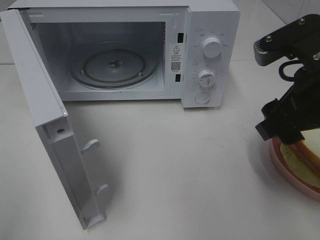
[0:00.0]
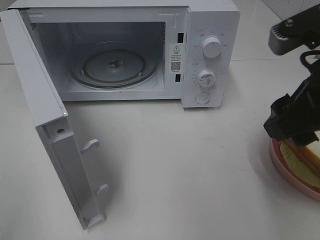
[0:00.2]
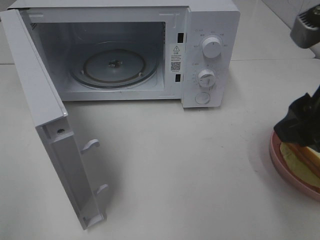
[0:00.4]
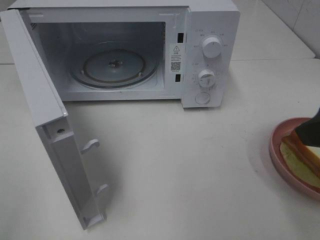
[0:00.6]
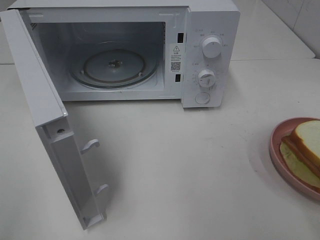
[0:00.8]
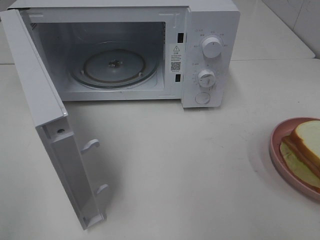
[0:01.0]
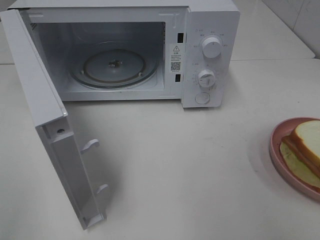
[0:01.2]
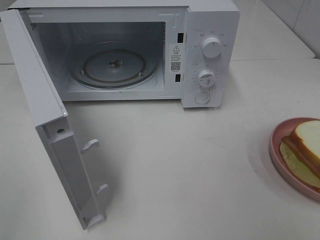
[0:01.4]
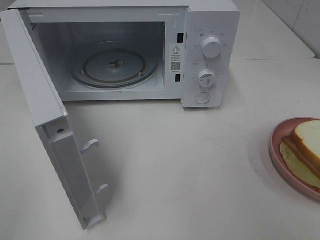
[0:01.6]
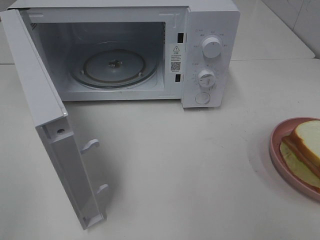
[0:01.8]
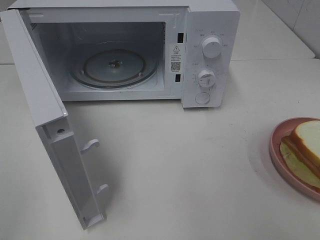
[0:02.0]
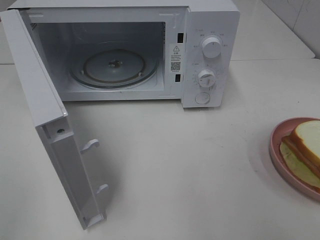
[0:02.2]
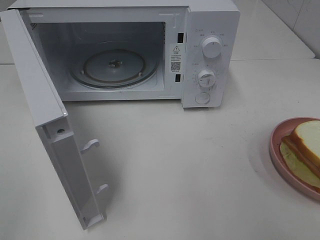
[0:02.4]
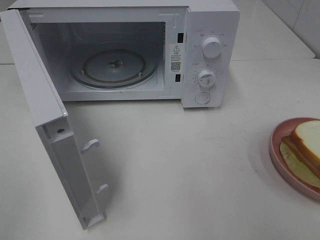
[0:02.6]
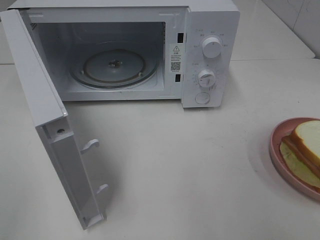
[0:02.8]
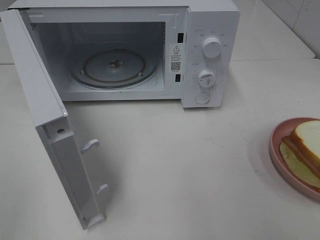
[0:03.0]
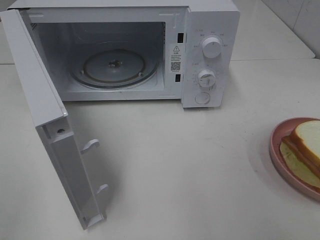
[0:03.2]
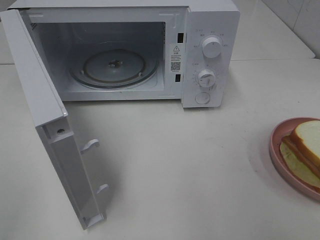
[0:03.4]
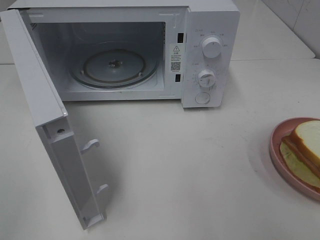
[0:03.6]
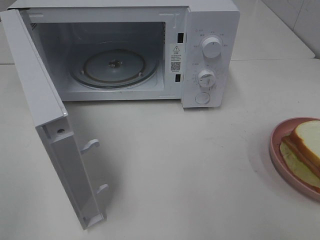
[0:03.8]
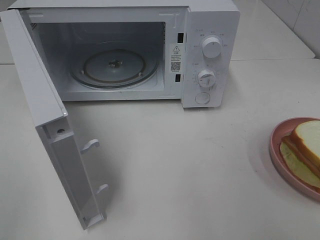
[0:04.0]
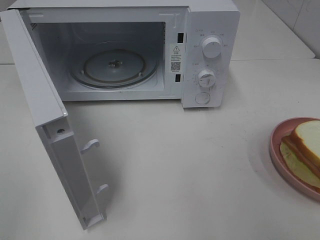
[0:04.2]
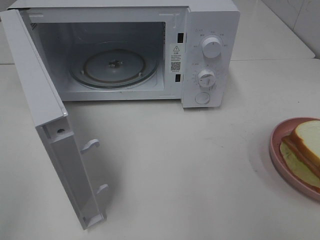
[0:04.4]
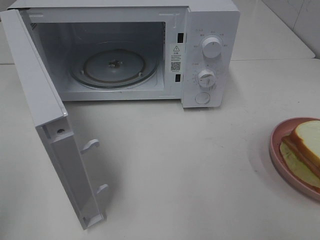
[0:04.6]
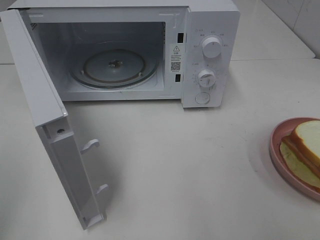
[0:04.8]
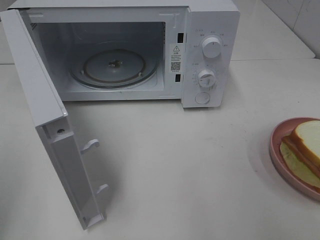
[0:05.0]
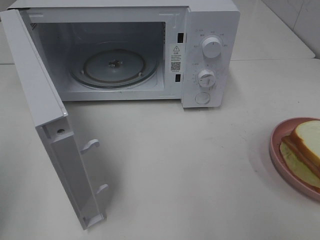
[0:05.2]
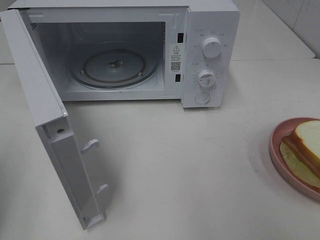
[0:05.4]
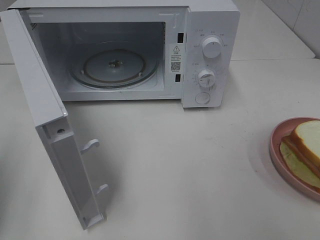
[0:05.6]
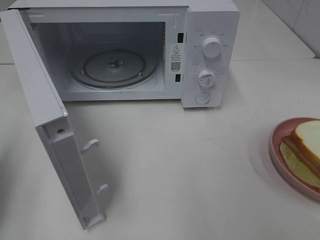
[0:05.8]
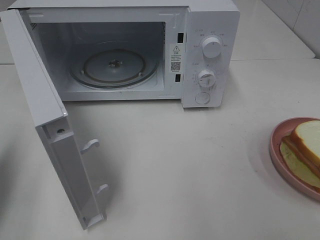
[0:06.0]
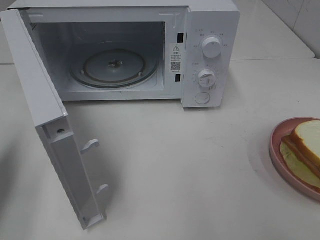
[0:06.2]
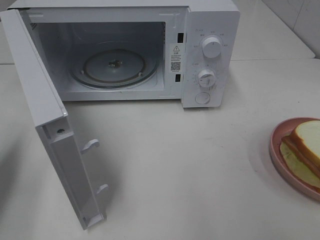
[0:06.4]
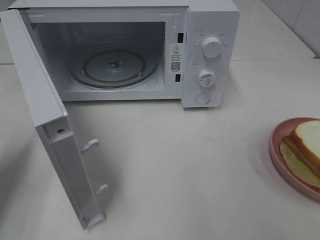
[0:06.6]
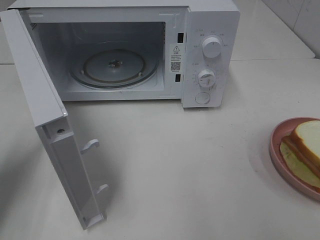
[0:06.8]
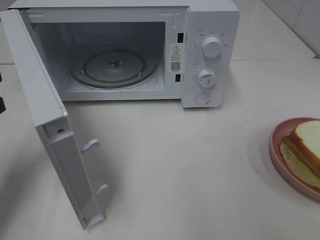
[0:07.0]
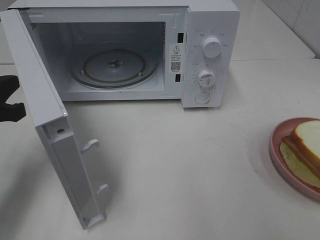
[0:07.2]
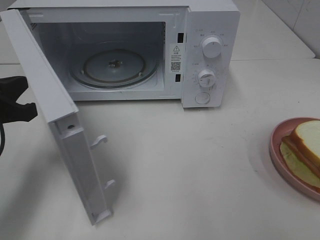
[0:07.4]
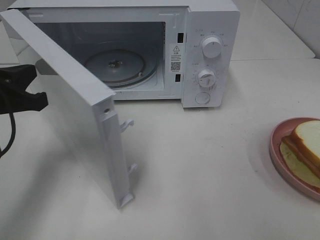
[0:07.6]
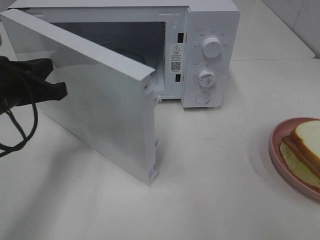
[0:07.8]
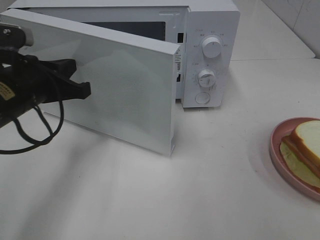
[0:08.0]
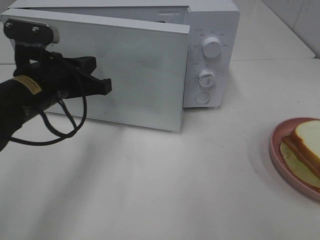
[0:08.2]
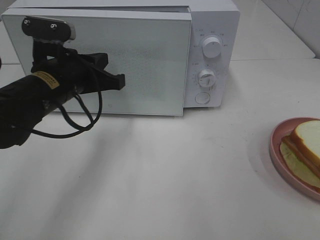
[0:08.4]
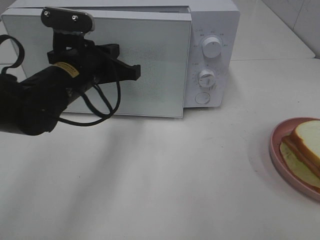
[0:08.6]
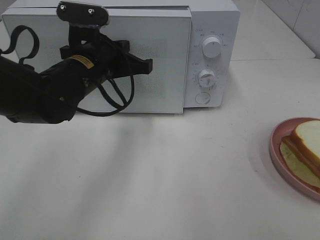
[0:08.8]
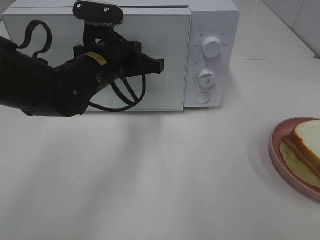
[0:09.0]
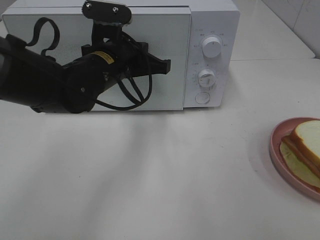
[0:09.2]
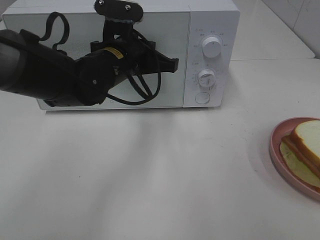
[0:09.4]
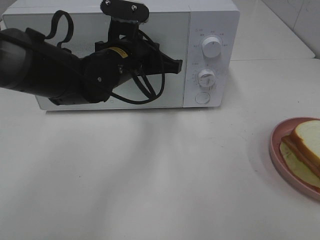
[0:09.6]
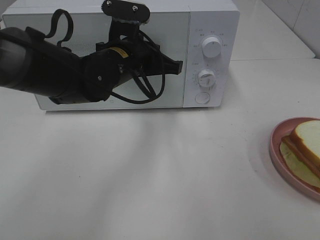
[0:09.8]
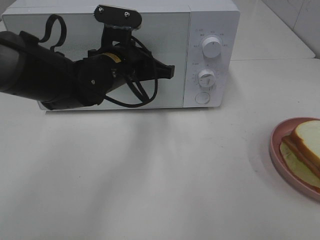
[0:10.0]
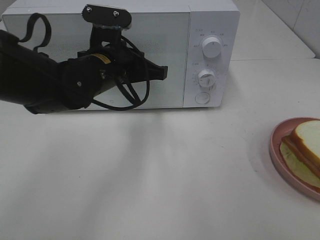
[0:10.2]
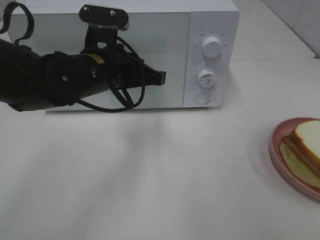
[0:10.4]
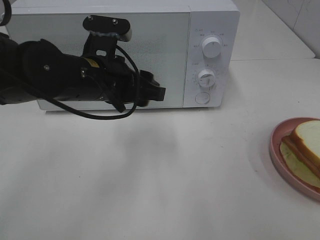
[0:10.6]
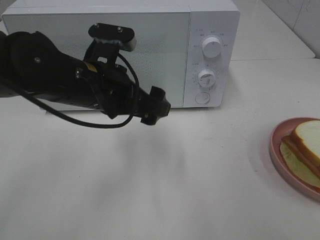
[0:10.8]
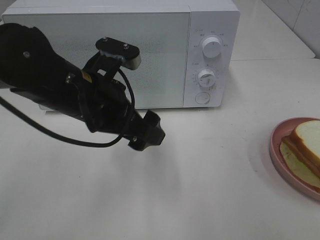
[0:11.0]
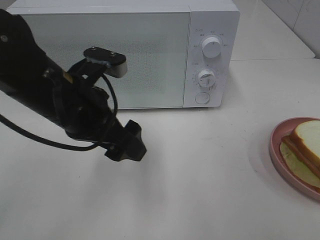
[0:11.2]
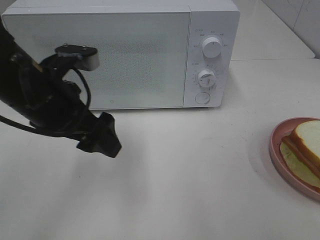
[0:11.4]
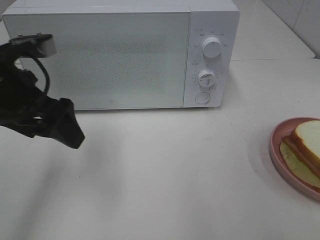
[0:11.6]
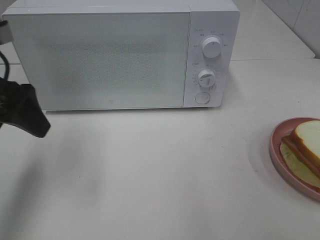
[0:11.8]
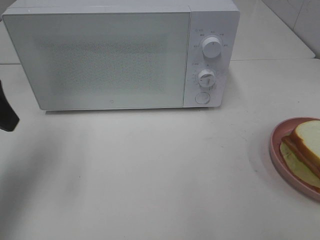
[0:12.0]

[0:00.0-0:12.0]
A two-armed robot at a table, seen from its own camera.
Task of the whole recording: Heat Sandwich.
Step, 0:00.0 to 0:09.8: Left hand: close the microwave door.
0:00.0 to 0:01.6: The right gripper heads backward and to the right, covering some 20 cm.
0:04.4 to 0:06.0: The left gripper is displaced forward and downward by about 20 cm, and closes up.
0:06.0 to 0:07.6: The left gripper travels to the right and forward by approximately 10 cm.
0:07.6 to 0:09.0: The left gripper heads to the right and forward, covering about 20 cm.
0:09.0 to 0:10.4: The grippers make only small movements.
0:10.4 to 0:12.0: The left gripper is displaced to the left by roughly 20 cm, and opens up.

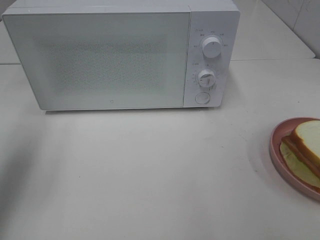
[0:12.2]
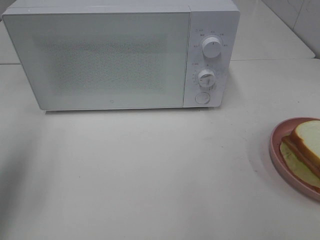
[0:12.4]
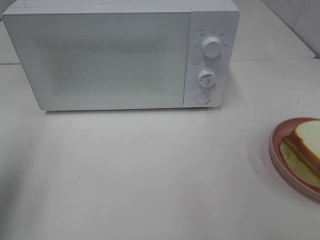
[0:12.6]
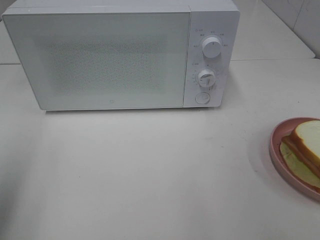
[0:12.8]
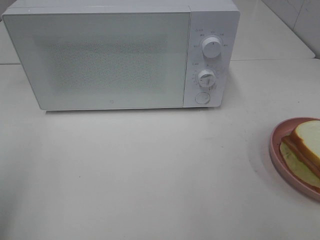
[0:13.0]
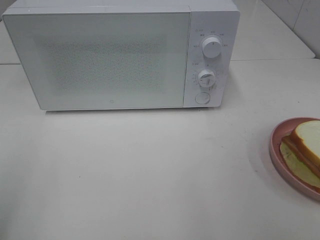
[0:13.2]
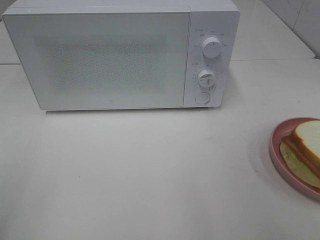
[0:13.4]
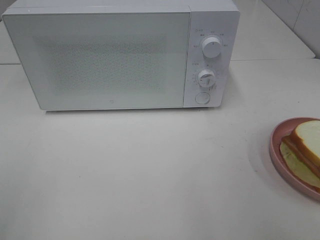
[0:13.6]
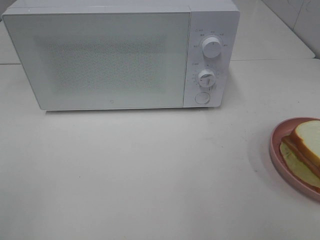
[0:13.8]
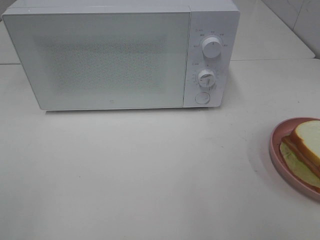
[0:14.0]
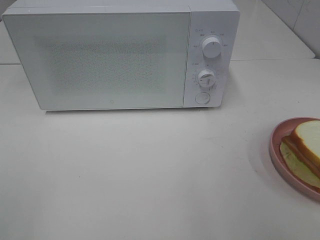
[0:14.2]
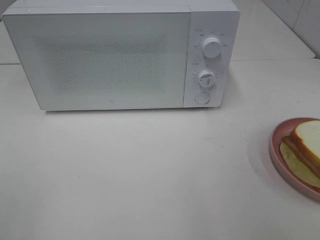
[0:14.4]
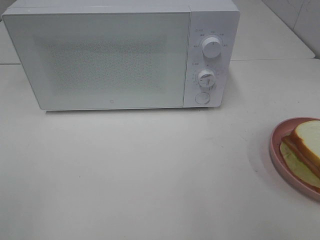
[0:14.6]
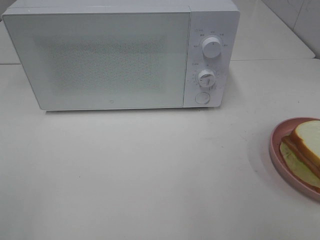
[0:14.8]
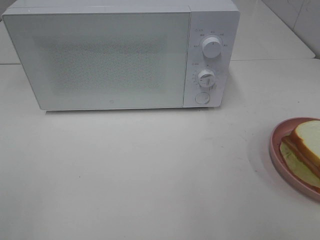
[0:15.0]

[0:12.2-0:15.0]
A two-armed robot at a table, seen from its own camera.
Task of the whole recording: Heat Sandwich.
0:12.2 to 0:13.6: The left gripper is displaced backward by approximately 20 cm.
